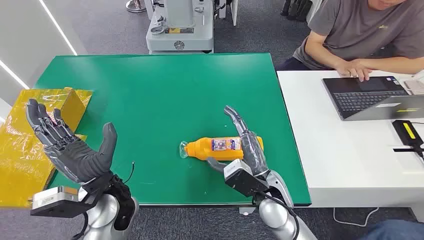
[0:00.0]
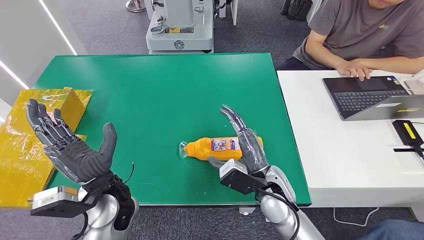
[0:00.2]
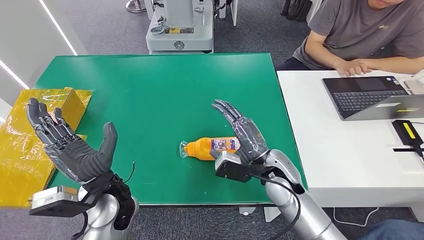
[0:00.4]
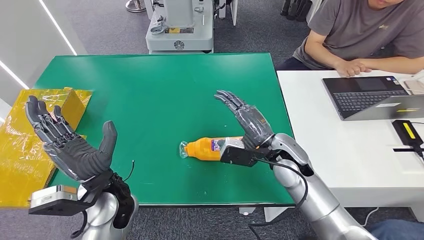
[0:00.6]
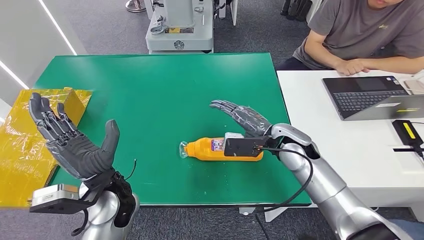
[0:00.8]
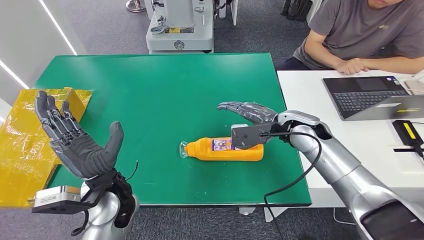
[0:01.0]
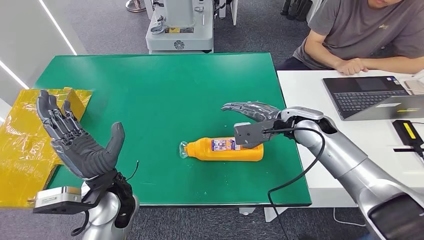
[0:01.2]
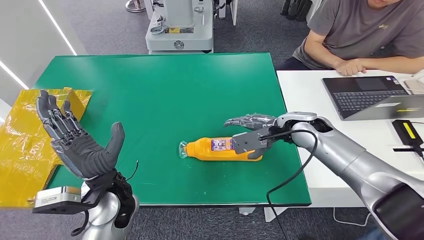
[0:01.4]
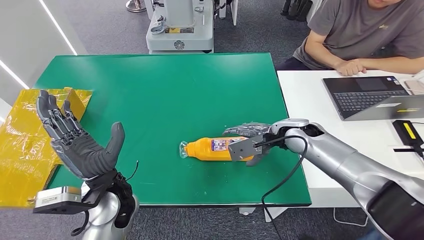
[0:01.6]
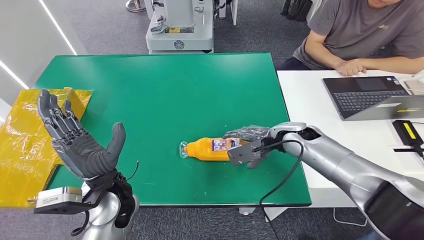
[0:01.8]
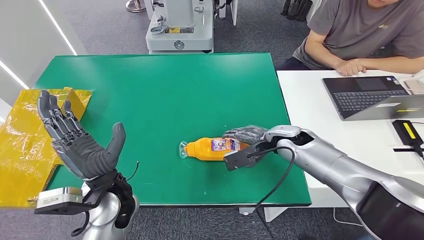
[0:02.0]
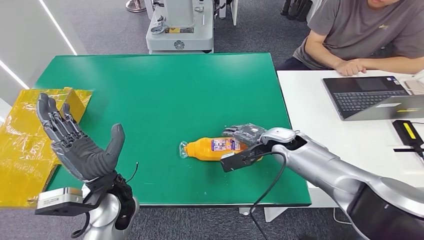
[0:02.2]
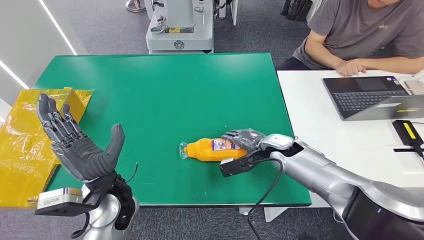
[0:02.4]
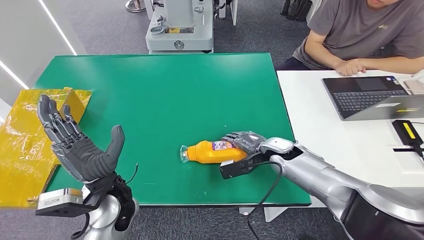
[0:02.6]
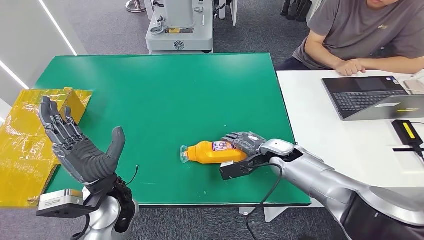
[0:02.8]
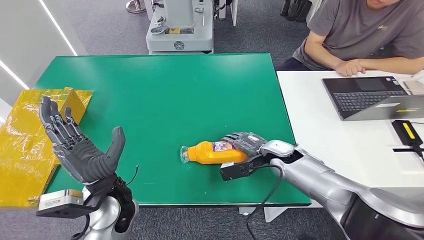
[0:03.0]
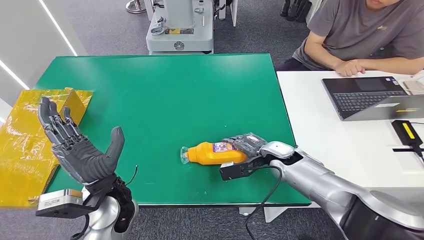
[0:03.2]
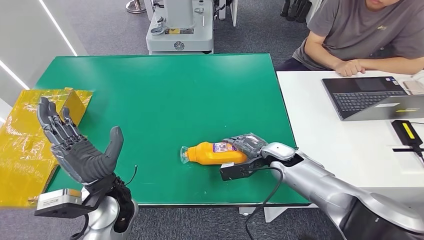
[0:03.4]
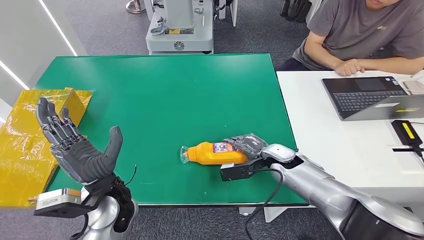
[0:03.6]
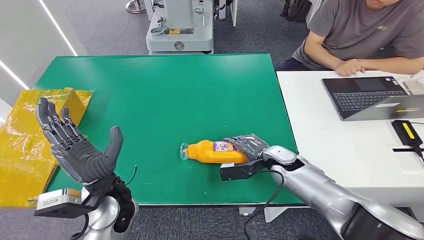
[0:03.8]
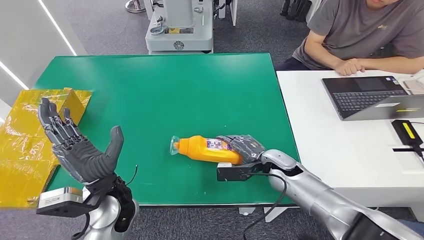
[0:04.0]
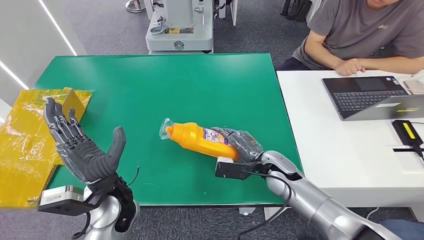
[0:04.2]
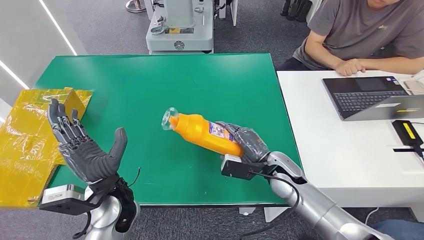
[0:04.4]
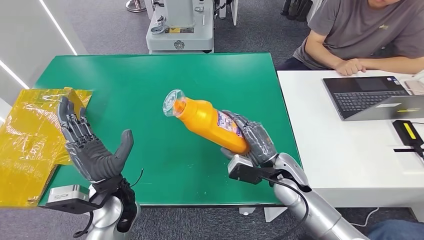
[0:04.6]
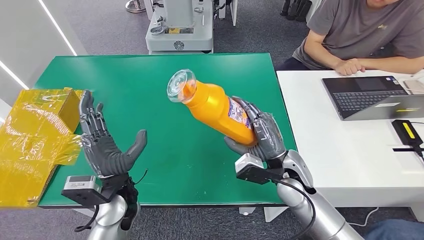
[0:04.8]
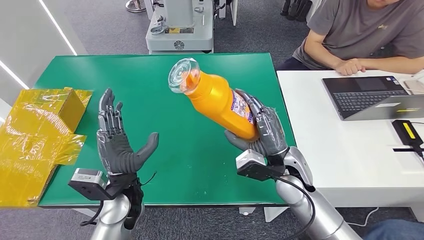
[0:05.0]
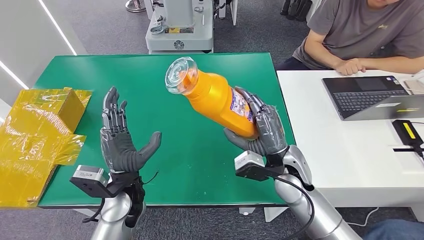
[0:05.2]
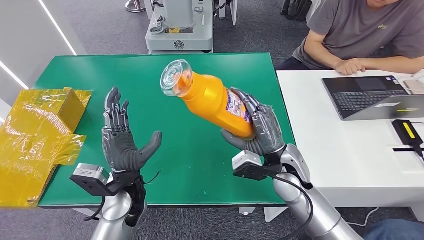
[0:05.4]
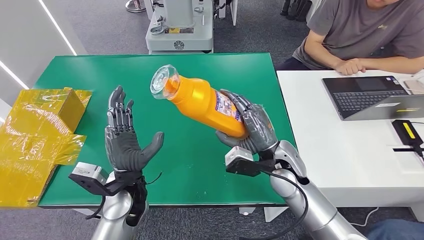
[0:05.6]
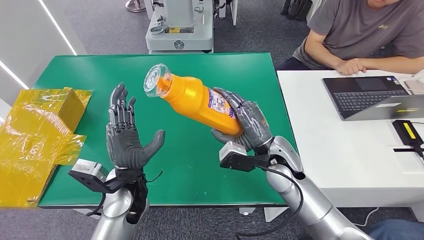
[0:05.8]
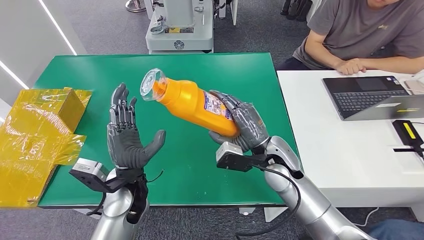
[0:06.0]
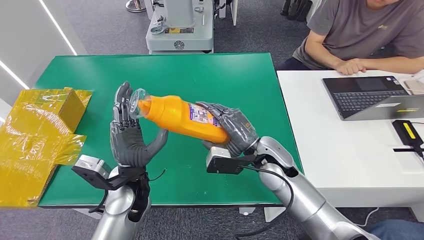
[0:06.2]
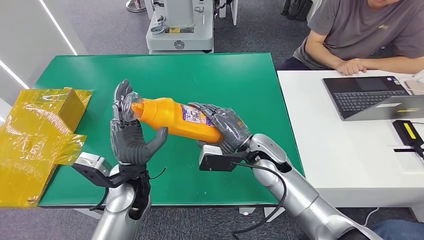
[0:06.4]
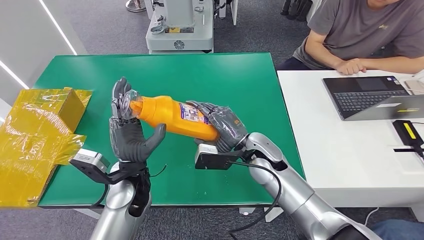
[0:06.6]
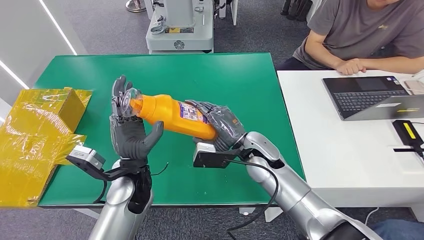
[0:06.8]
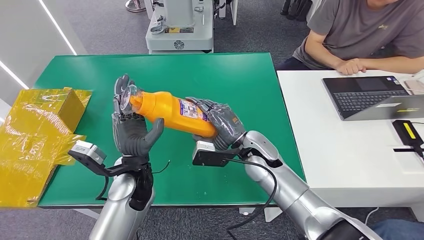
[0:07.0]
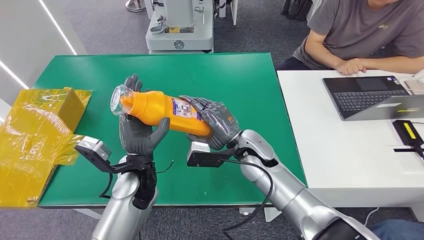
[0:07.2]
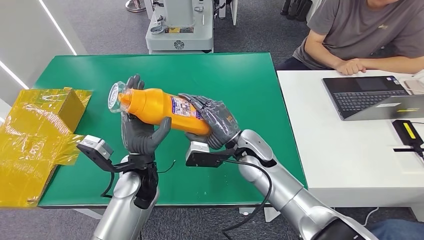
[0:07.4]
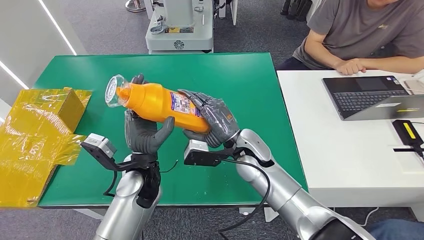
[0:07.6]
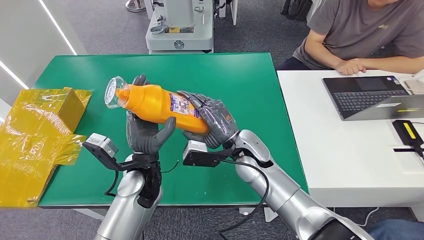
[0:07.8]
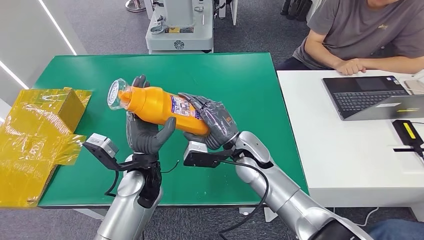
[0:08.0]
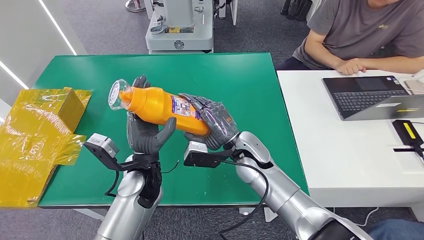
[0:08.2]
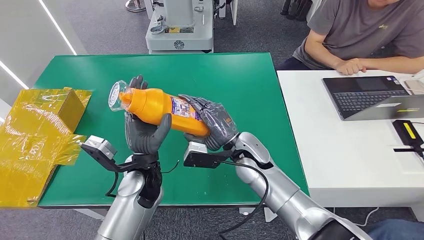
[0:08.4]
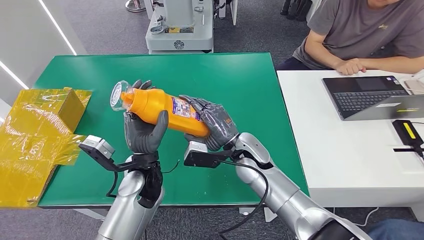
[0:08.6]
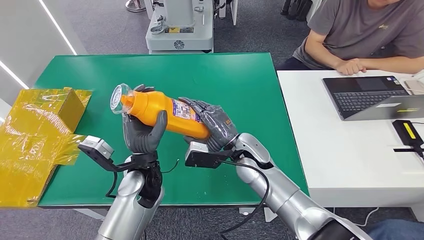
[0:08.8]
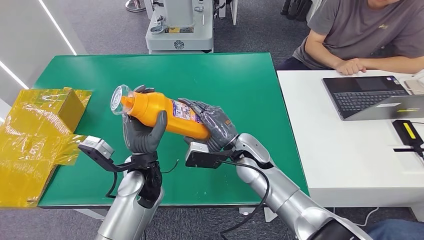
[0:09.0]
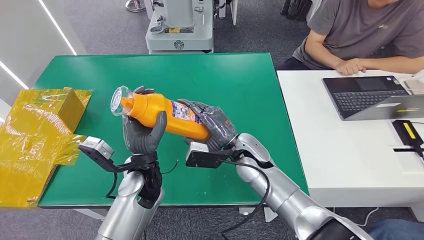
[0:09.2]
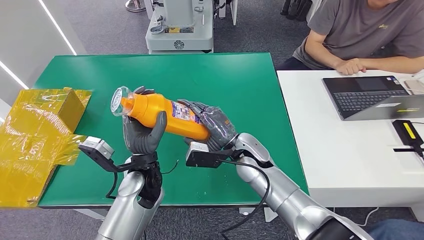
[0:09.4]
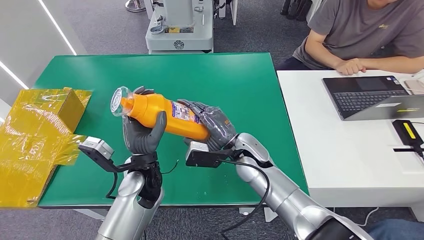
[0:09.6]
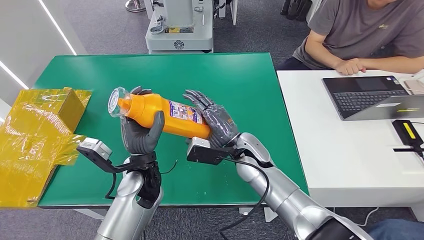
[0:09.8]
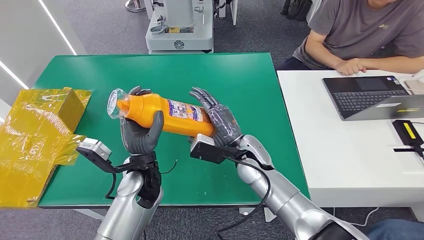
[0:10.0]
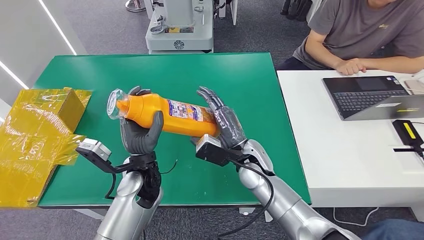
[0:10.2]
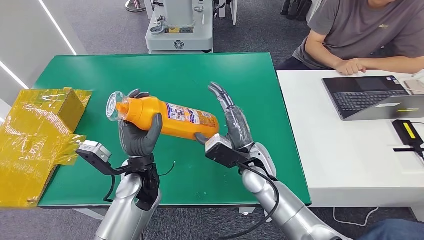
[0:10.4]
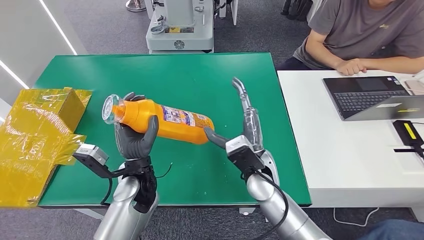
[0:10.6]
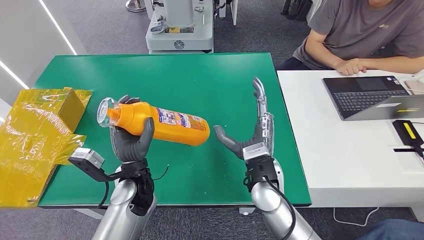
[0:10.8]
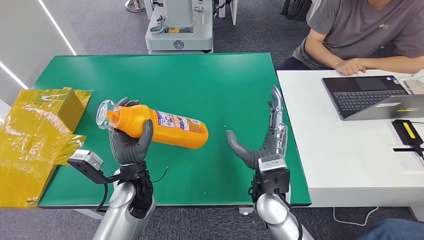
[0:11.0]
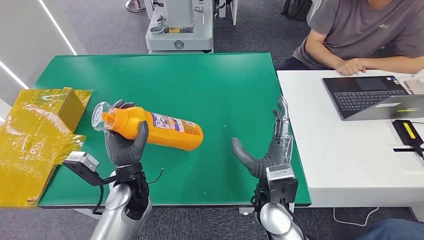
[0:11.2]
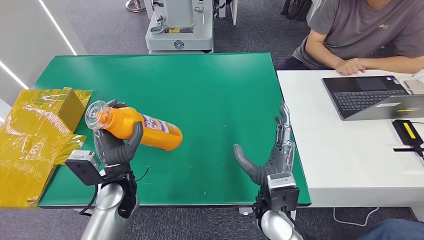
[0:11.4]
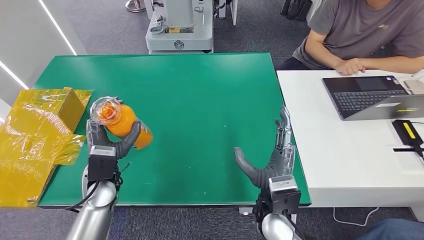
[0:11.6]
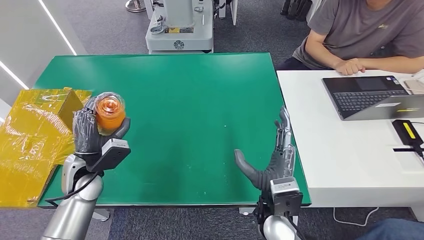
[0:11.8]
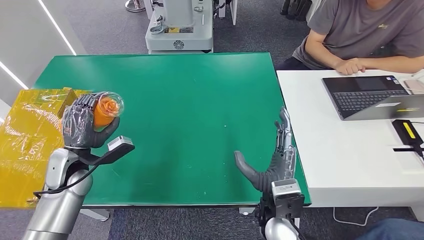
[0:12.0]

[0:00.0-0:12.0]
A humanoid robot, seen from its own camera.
Step, 0:00.0 to 0:05.0: Pick up the bottle from the table.
0:01.6 to 0:03.0: The right hand shifts roughly 10 cm downward.
0:03.0 to 0:04.4: The right hand goes some 5 cm backward.
0:04.4 to 0:06.0: The right hand shifts roughly 5 cm upward.
0:06.0 to 0:07.6: The right hand shifts roughly 5 cm to the left.
0:07.6 to 0:09.0: The hands stay close to where they were, moving slightly.
0:10.4 to 0:12.0: The right hand moves backward, about 10 cm, while the left hand heads to the left, covering approximately 20 cm.

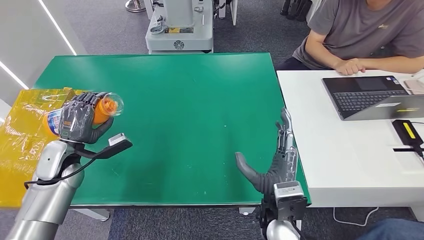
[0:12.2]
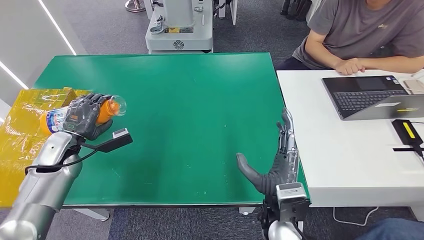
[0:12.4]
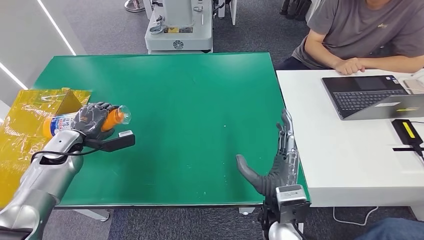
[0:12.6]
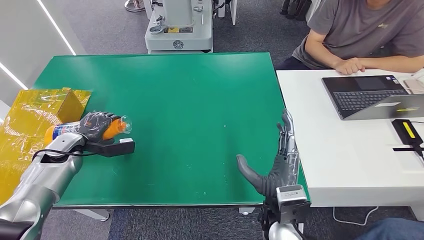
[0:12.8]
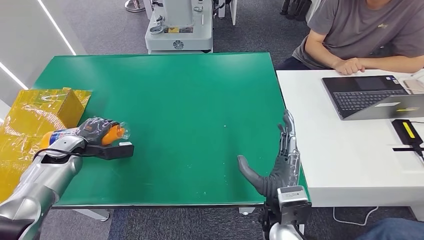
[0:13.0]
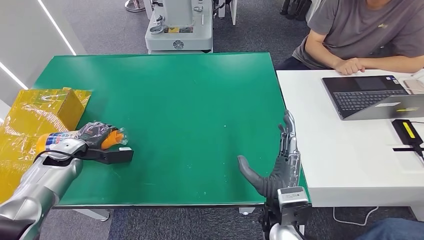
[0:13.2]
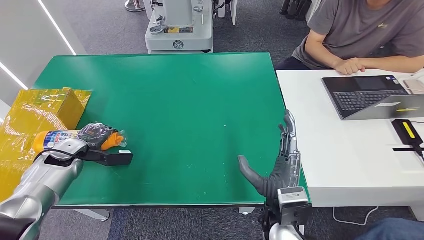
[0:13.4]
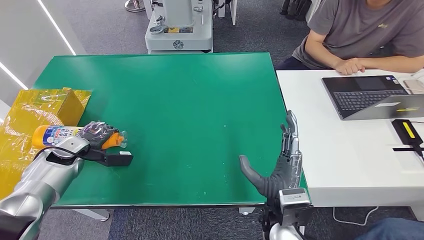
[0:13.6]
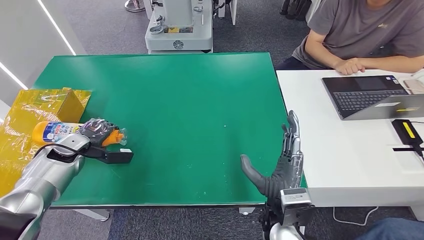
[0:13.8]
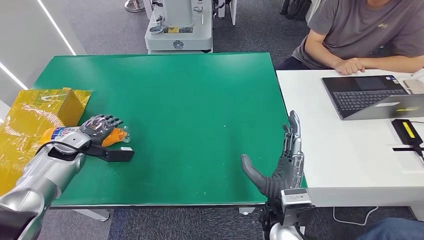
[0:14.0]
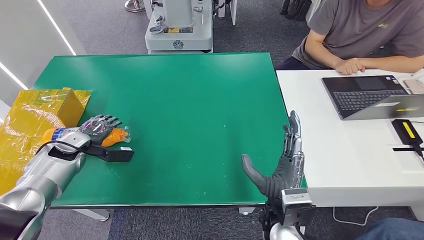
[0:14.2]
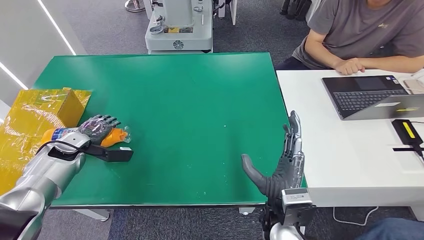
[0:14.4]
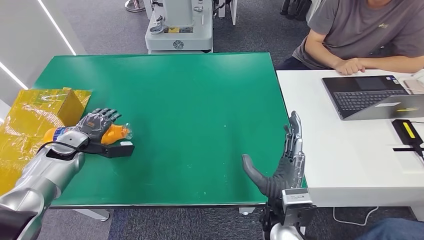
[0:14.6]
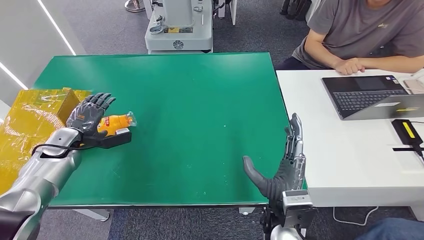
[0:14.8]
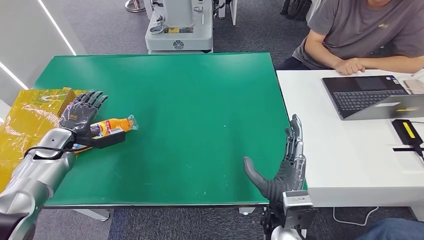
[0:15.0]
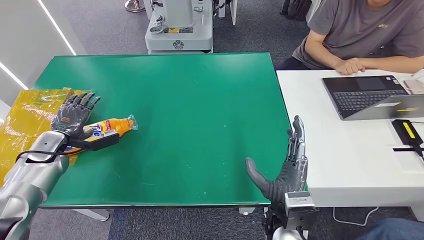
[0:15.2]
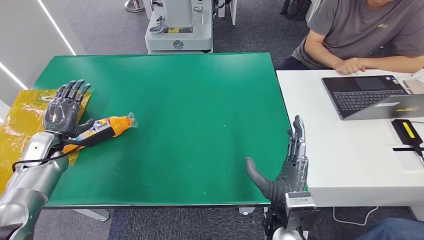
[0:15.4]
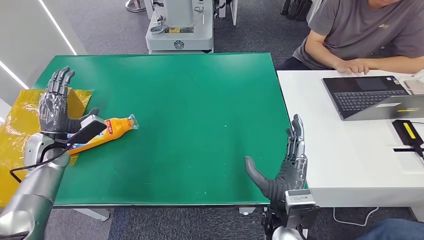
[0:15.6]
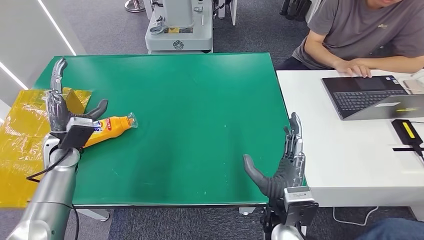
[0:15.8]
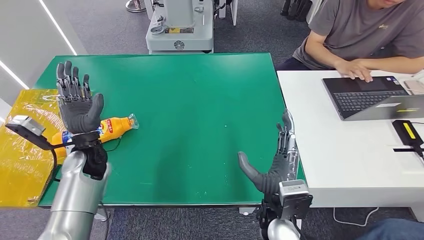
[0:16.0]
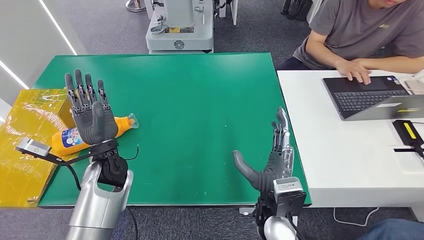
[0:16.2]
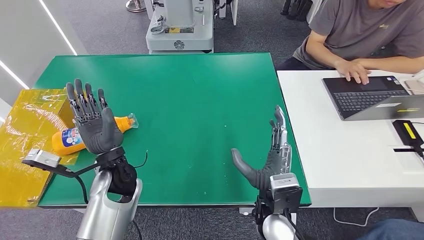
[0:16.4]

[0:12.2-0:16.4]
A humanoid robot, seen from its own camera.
Step, 0:12.2 to 0:16.4: Turn the bottle to the front side.
0:12.2 to 0:13.6: The left hand travels to the left by some 5 cm.
0:15.0 to 0:16.4: The left hand goes about 25 cm to the right.
